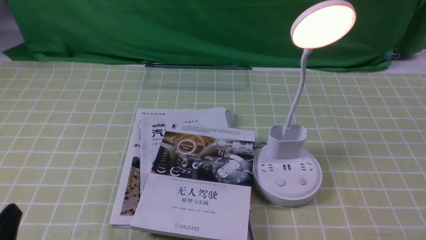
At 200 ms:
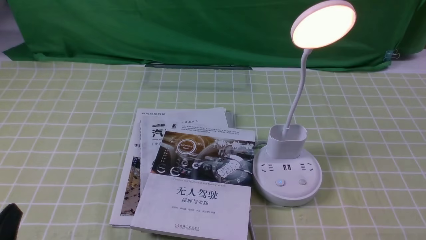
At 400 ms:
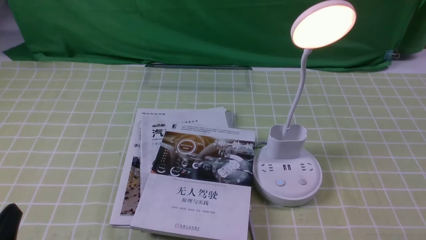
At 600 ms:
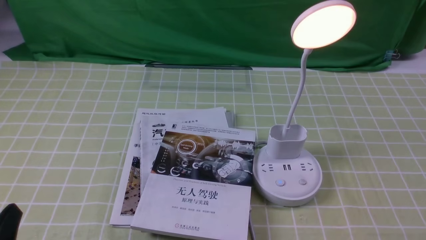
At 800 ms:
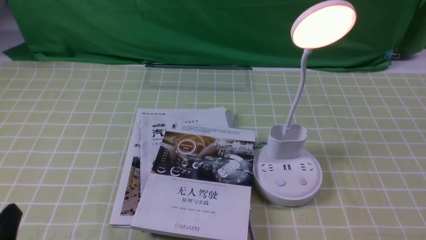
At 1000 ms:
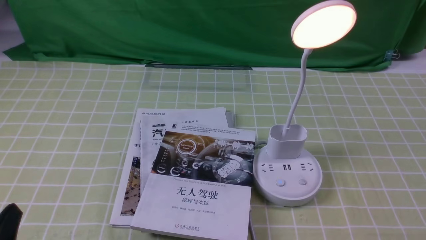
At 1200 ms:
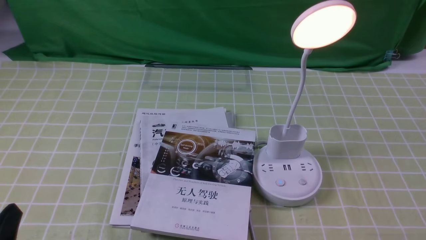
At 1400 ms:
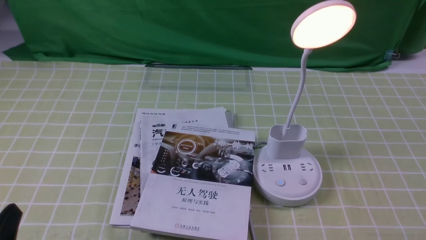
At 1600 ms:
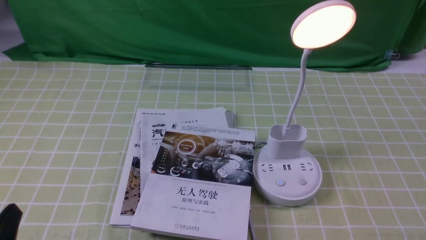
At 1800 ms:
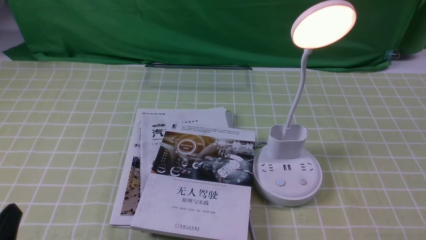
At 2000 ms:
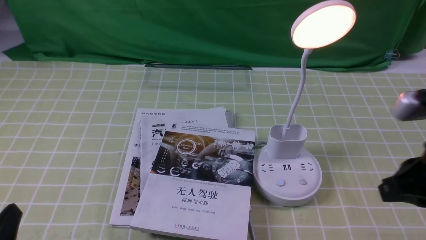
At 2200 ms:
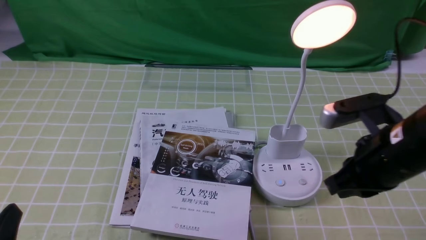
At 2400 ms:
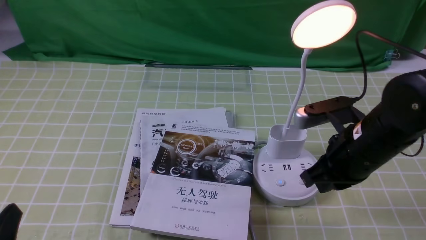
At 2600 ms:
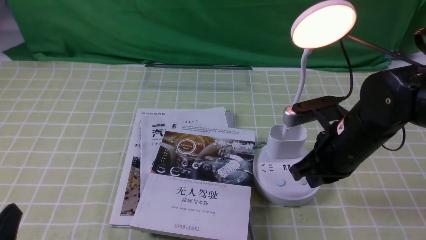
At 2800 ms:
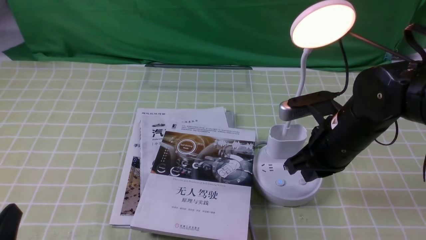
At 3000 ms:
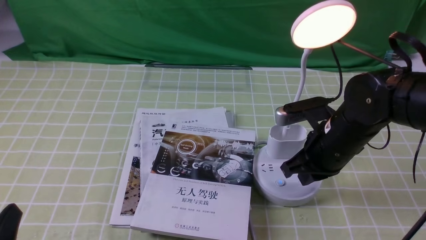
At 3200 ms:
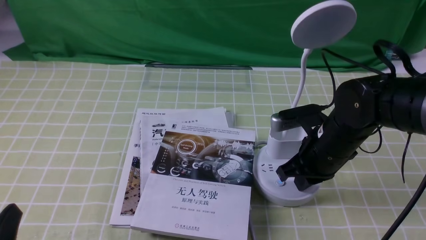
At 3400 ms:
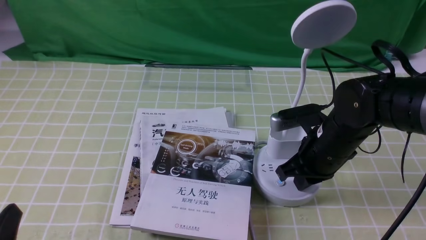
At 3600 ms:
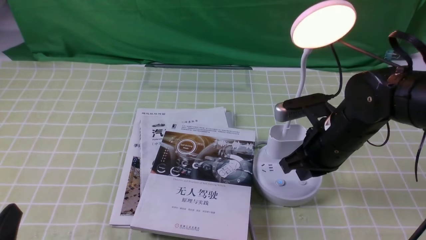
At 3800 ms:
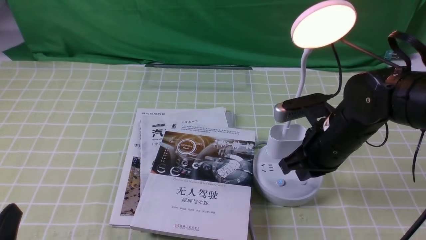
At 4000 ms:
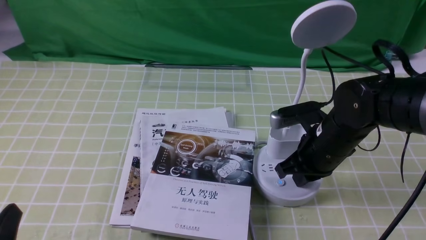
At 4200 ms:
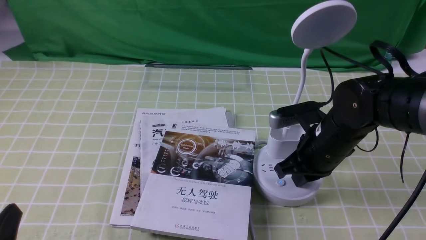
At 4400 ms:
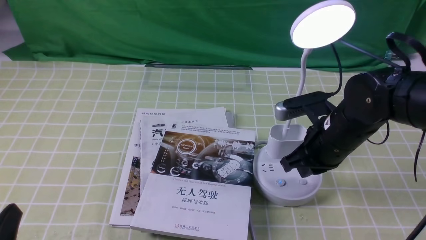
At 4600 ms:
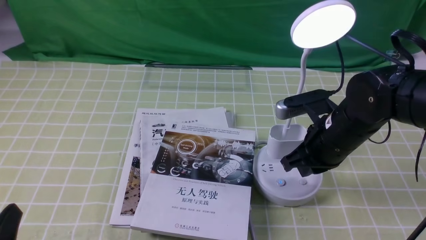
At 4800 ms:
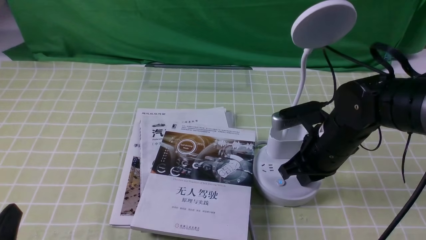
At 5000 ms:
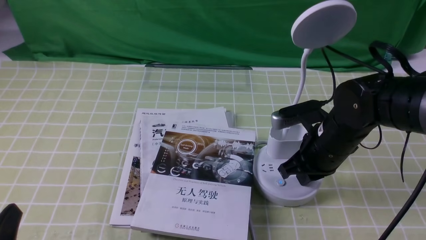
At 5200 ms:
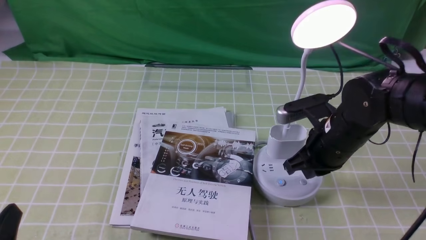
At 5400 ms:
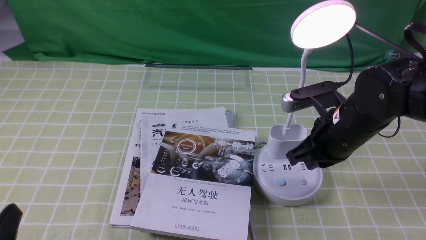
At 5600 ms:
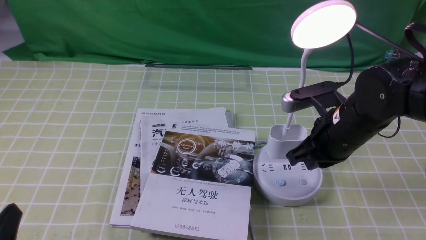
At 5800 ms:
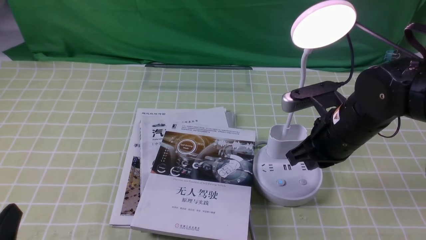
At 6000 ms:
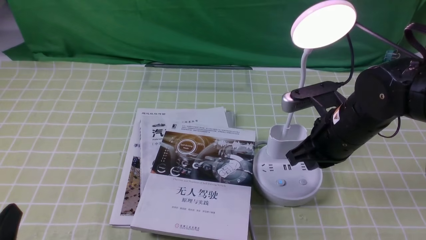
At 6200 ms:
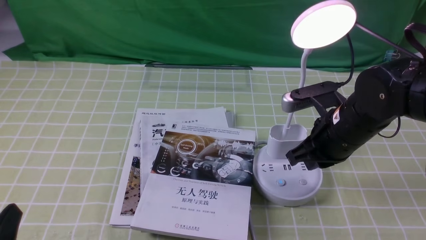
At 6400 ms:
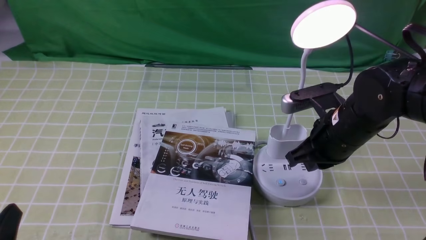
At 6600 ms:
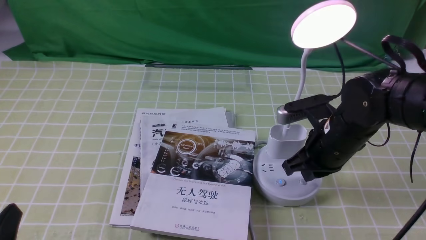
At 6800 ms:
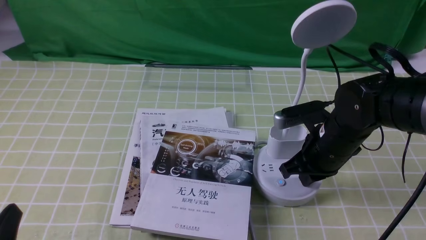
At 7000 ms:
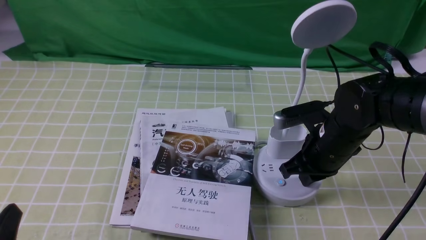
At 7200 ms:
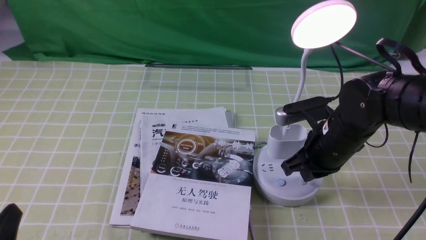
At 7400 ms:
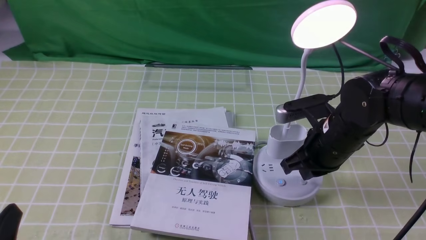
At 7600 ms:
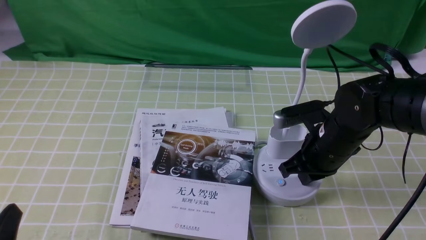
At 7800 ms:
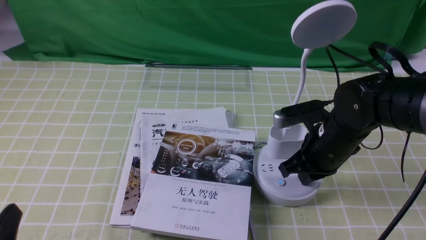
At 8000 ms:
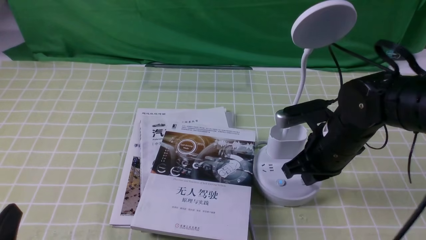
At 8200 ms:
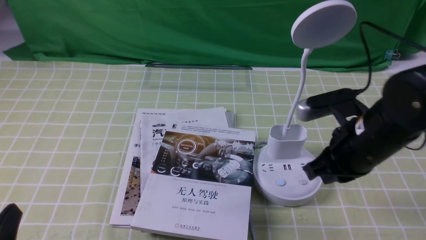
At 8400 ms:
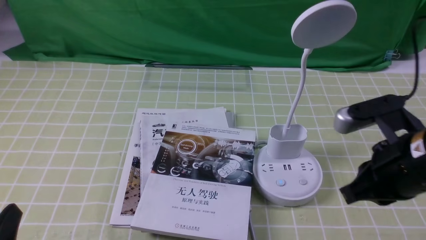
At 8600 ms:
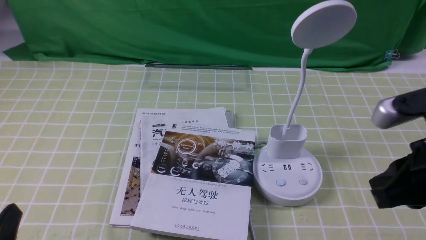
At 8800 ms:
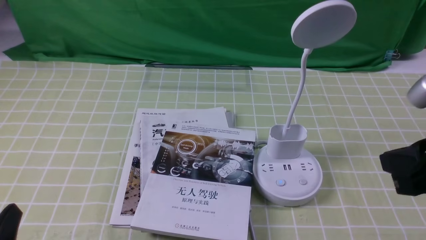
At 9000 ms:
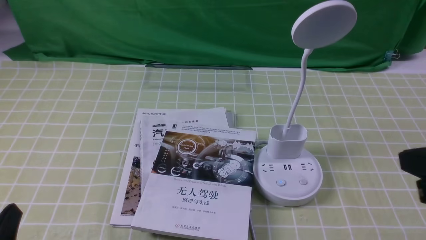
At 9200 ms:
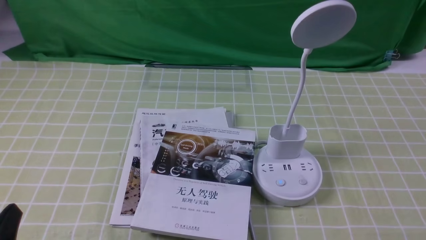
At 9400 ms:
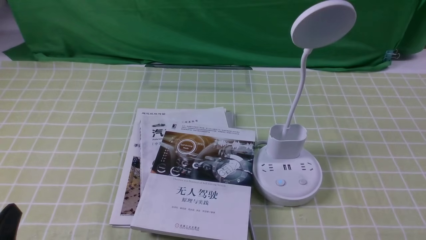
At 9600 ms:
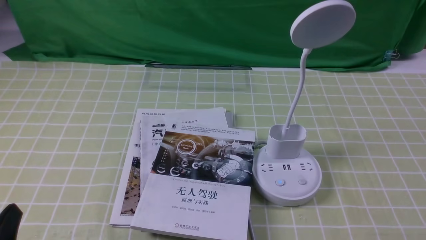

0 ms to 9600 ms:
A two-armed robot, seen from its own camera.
Task of the whole recording: turn off the desk lamp on the green coffee tablecloth by hand.
Step, 0 ms to 8000 ms: use the right arm to press the button switch on the lamp holder.
1600 ms to 3200 ms: The right gripper heads forward and to the left, covering approximately 30 cm.
3200 ms to 4800 ms: Neither gripper changes place.
4800 ms to 8000 ms: The grippers move only a little.
8000 ms to 9600 ms: The right gripper shifts about 30 cm backward and to the right.

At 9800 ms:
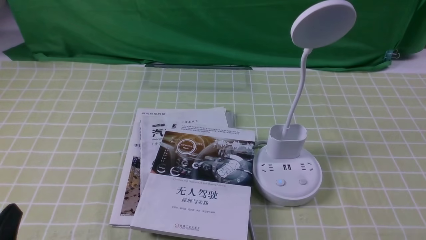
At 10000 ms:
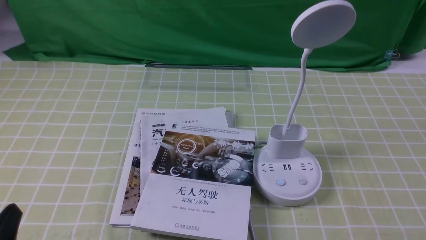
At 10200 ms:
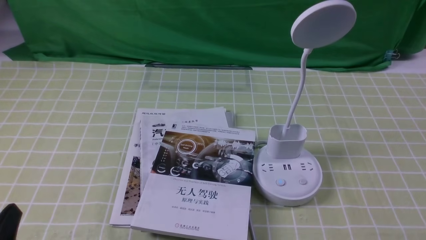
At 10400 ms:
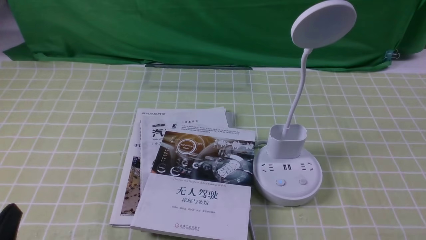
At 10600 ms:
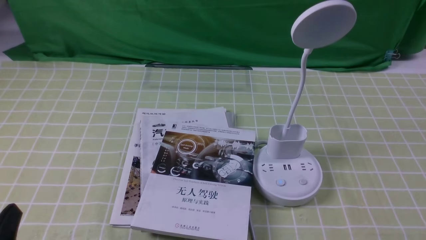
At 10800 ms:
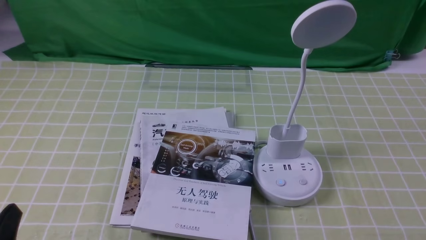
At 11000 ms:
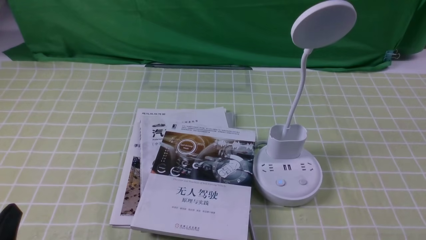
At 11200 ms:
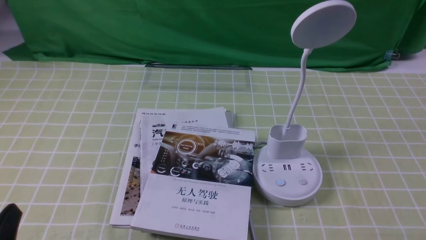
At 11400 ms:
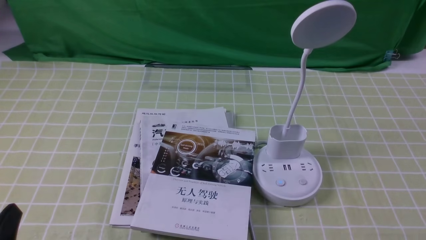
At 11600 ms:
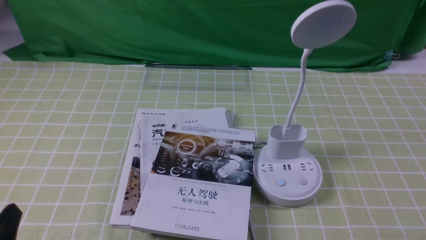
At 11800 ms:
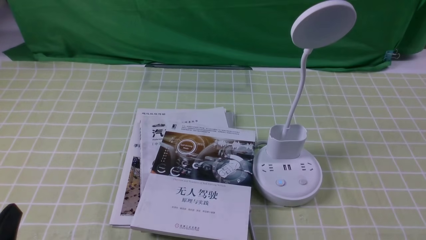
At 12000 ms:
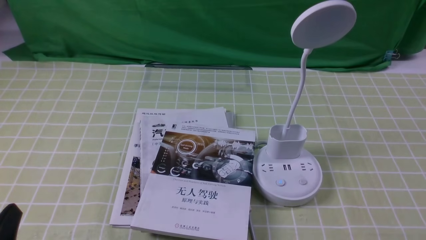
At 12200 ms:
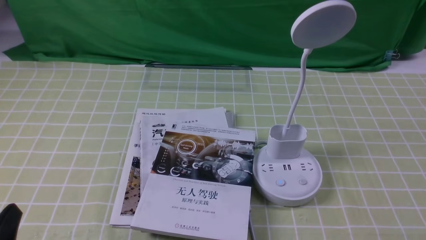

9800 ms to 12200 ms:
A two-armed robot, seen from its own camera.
Task of the whole recording: turn off the desk lamp on the green coffee tablecloth by hand.
9800 ms to 12200 ms: Both grippers stay about where they are.

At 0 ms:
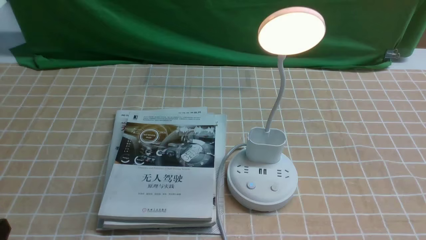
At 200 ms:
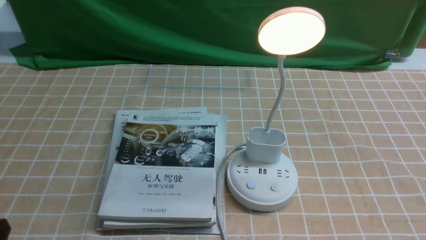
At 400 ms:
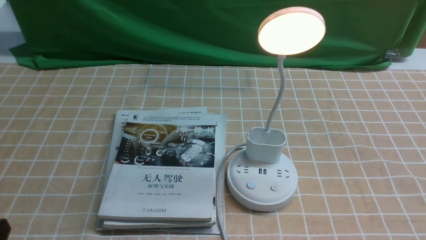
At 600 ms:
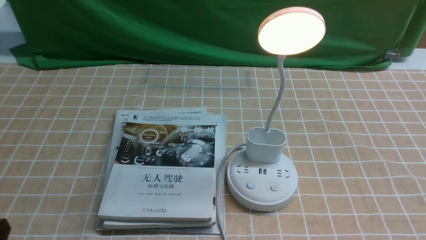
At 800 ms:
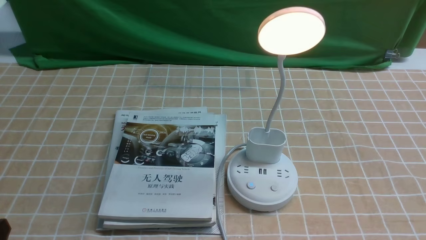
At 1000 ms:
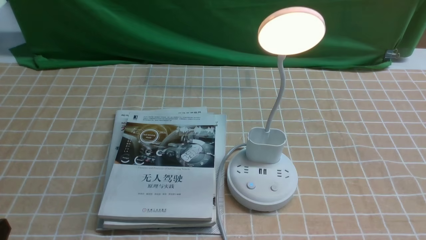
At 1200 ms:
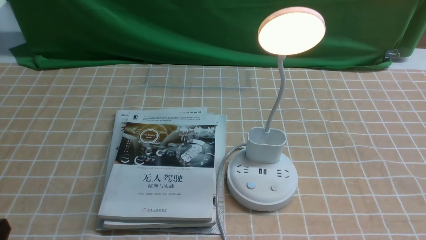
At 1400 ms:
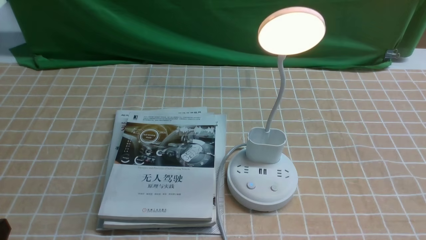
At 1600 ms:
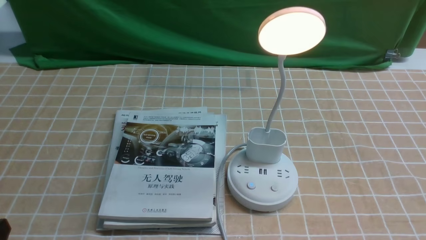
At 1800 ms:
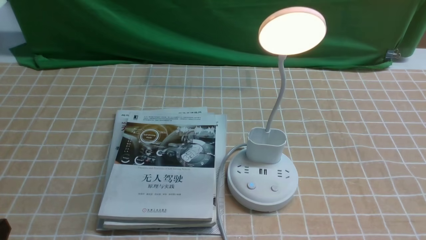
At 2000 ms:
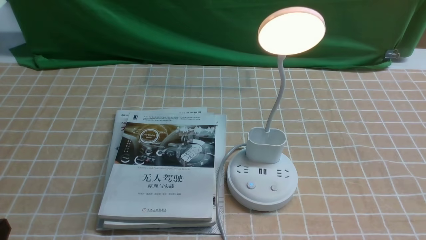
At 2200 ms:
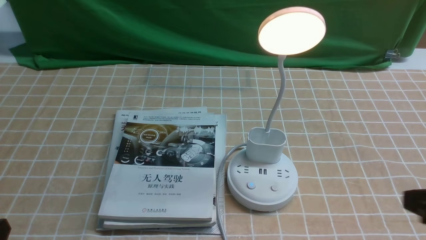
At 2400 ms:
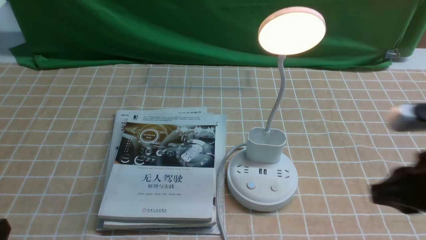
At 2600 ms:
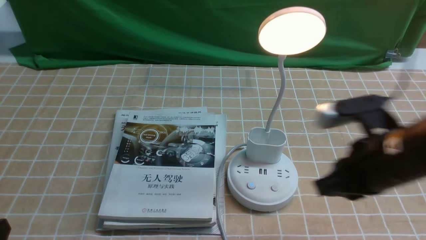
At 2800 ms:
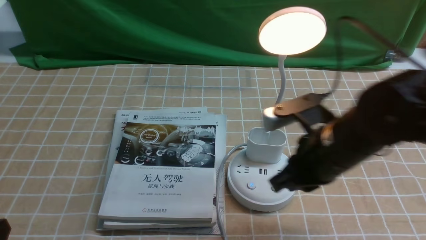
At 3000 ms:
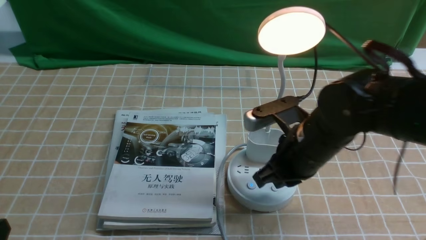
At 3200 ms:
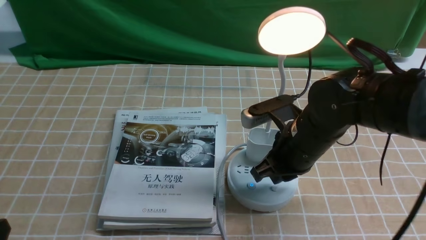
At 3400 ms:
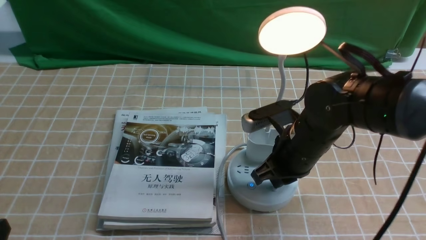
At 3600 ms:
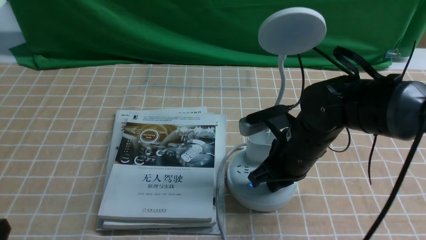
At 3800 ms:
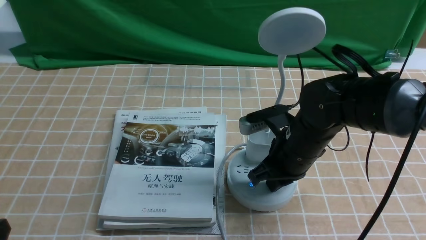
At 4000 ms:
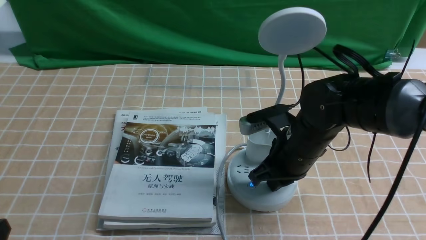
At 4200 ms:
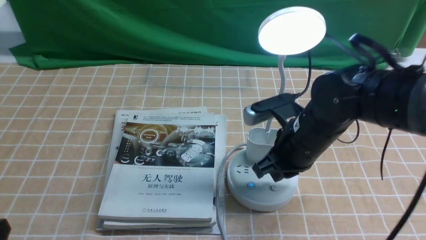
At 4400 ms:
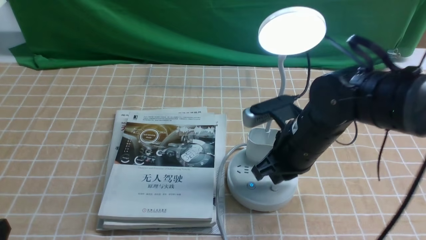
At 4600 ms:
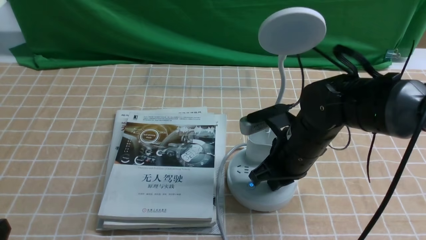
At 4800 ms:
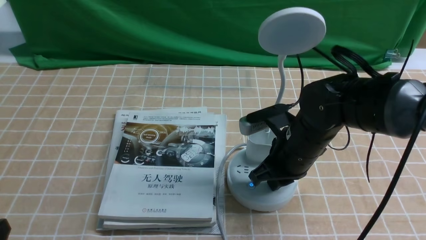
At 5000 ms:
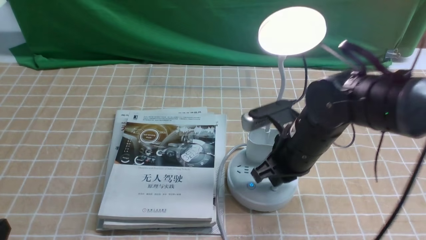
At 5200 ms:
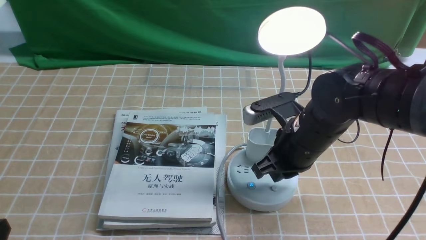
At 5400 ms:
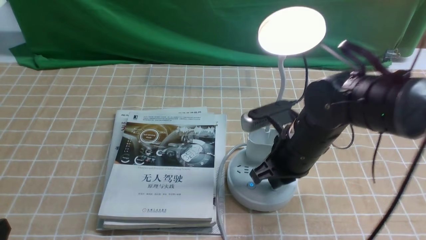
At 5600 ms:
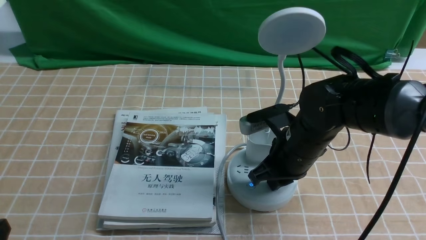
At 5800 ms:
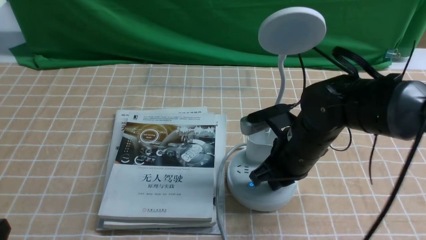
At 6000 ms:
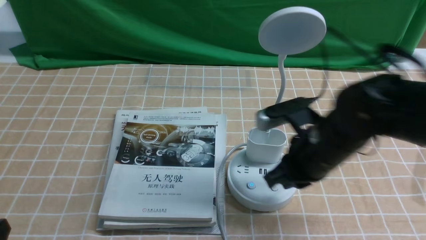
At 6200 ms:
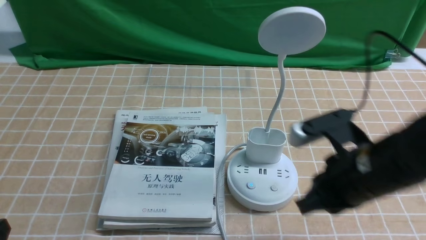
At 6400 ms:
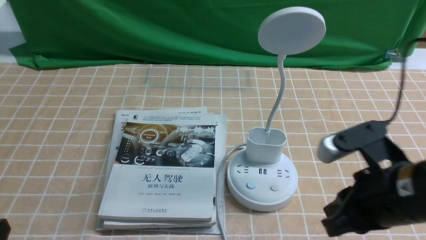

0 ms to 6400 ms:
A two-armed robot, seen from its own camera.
Task of the whole recording: turn off the desk lamp on the light coffee tablecloth by hand.
Step, 0 ms to 6000 ms: use the right arm to press the button switch on the lamp holder.
1600 ms to 3200 ms: The right gripper is displaced forward and to the left by about 30 cm, and closes its fingers.
3200 ms to 4800 ms: The grippers make only small movements.
4800 ms to 6400 ms: The right gripper shifts roughly 15 cm backward, upward and to the right.
